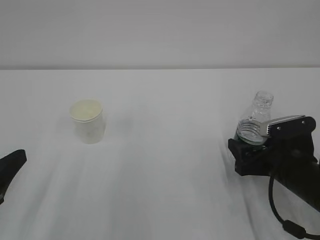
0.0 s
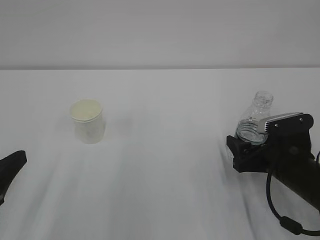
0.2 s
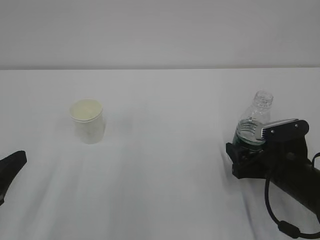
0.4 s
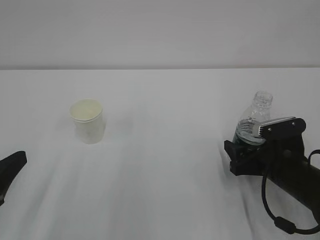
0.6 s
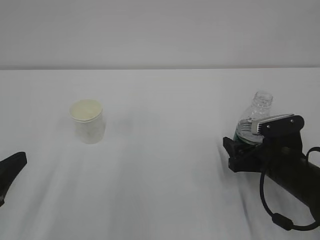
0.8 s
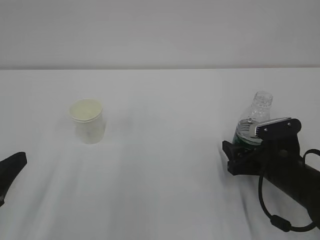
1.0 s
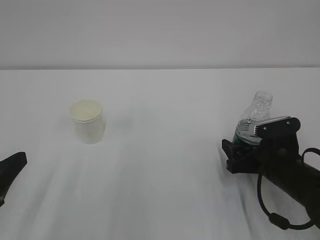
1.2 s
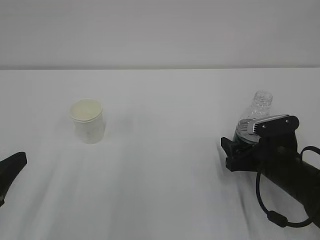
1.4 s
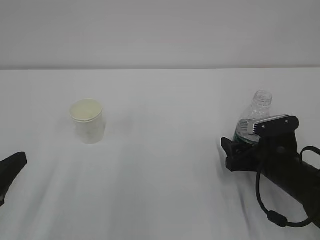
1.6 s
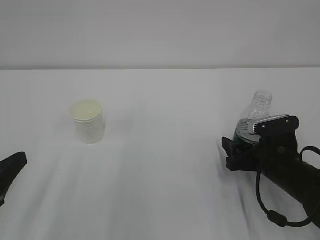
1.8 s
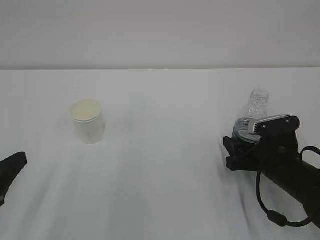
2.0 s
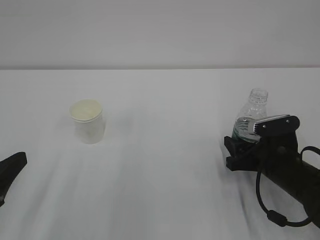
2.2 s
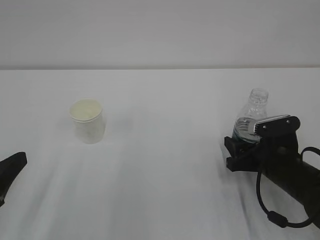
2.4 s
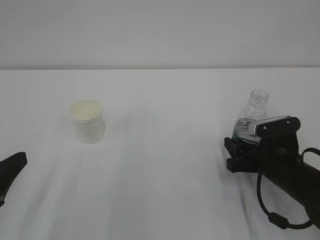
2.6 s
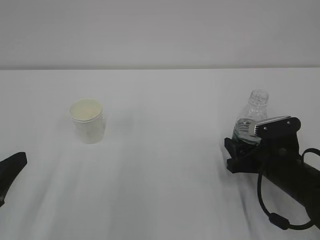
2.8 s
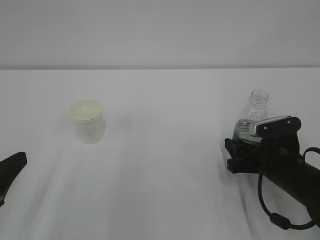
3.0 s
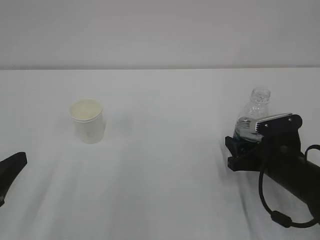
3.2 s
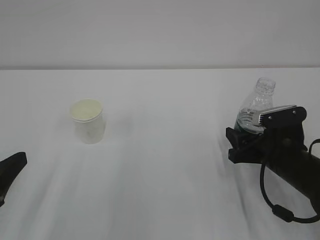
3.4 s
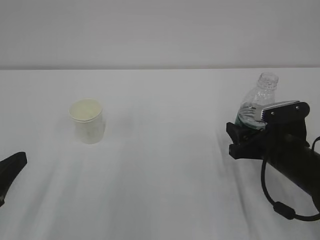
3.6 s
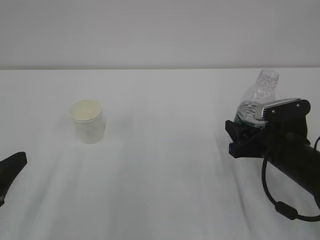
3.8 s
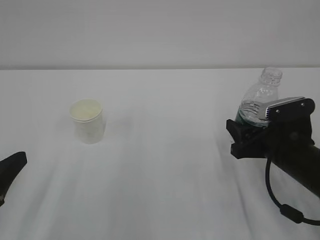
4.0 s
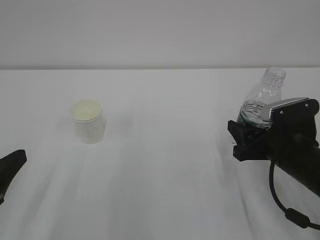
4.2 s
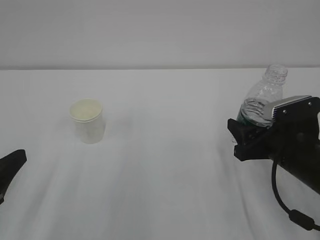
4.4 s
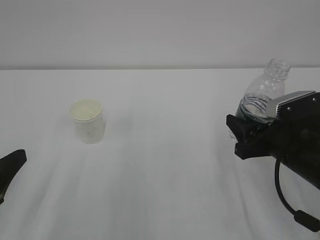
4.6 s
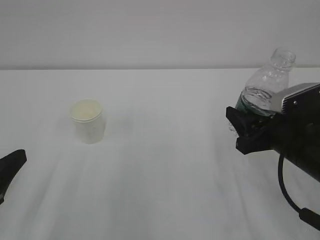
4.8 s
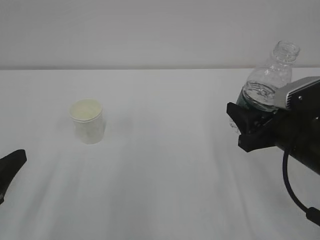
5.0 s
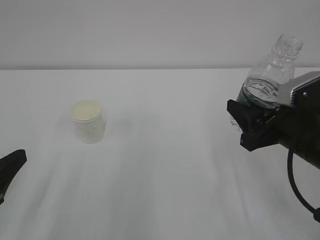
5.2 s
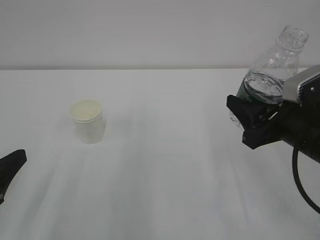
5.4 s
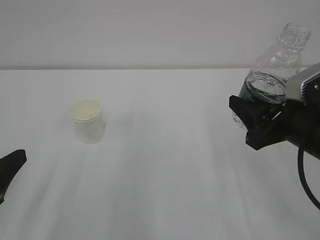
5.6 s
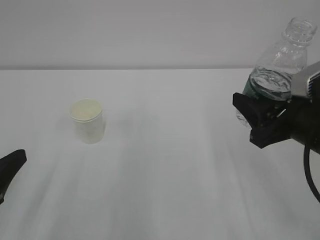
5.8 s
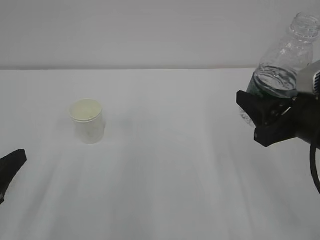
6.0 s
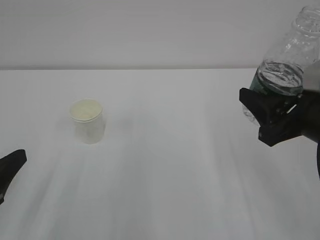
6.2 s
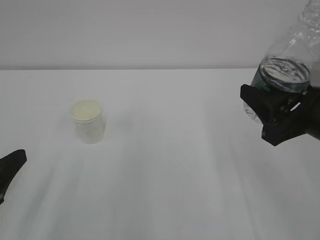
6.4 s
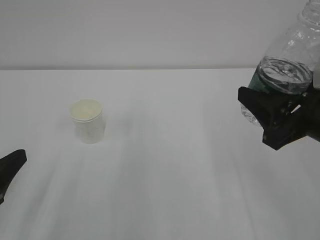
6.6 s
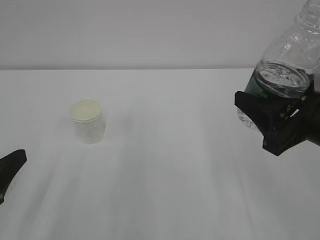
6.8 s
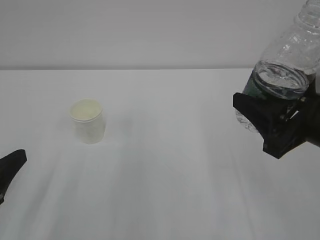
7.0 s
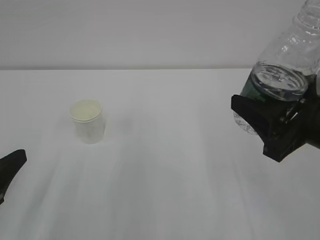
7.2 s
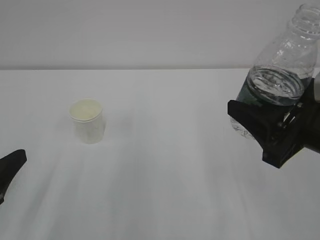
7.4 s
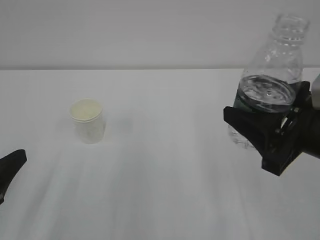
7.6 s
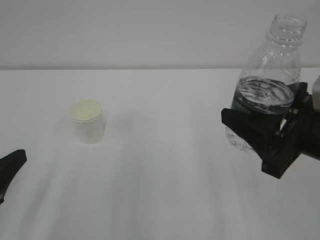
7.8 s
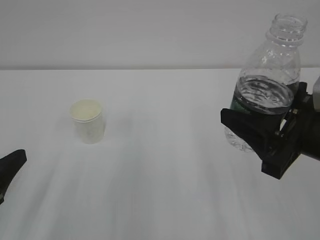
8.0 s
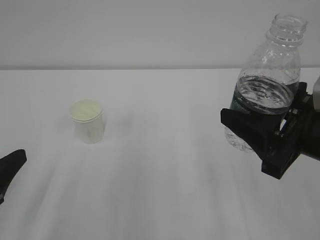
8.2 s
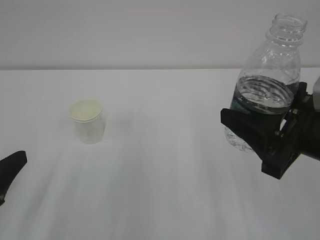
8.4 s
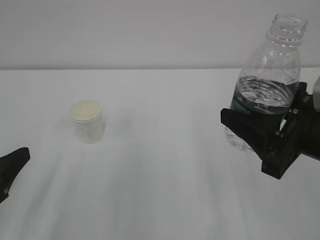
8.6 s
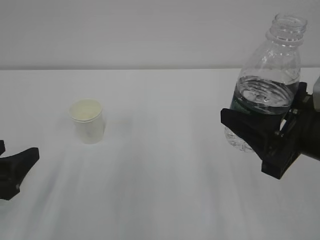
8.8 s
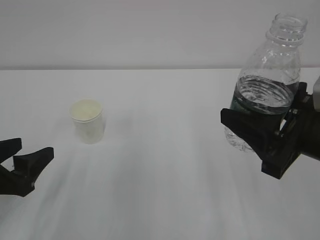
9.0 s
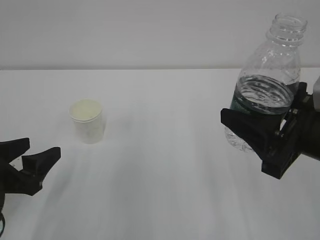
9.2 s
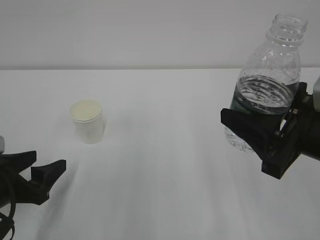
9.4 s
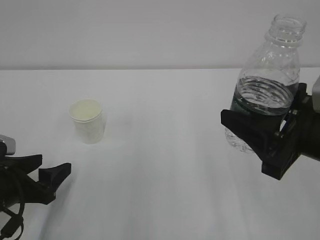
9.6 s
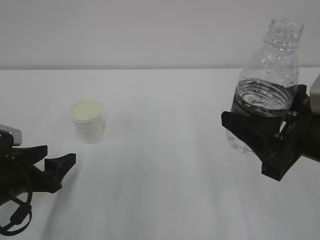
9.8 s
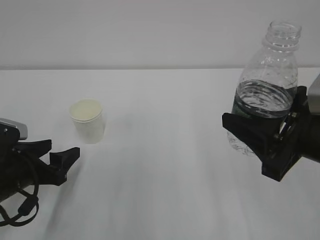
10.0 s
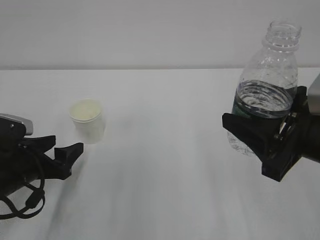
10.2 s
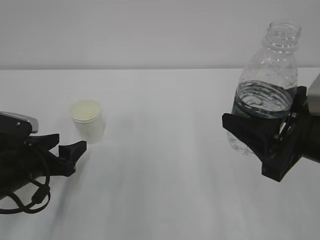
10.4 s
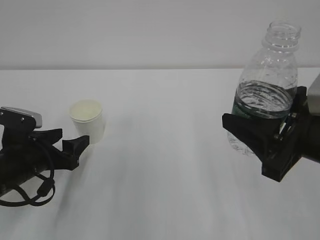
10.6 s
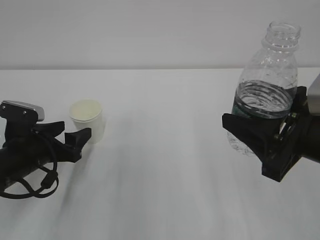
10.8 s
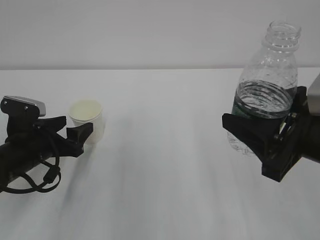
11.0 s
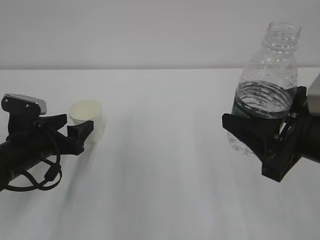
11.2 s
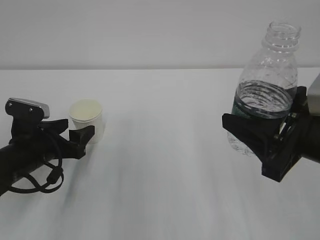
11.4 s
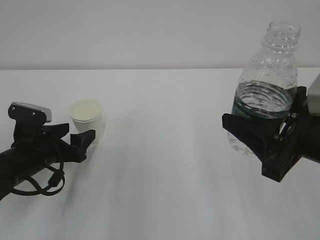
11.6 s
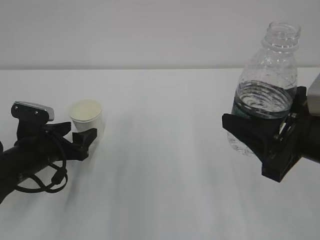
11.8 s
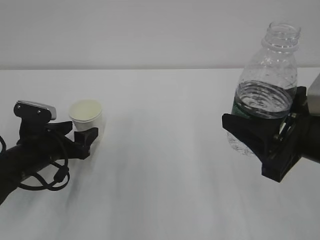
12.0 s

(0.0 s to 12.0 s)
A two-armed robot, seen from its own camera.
0.0 s - 1.6 s: The grippers stay close to where they were, moving slightly.
1.6 s - 3.0 s: The right gripper closes.
3.0 s - 4.4 s: The right gripper travels upward by some 5 cm.
4.4 s - 6.0 s: The right gripper travels upward by some 10 cm.
6.0 s - 9.0 s: There are only small adjustments of the grippers.
9.0 s - 10.4 s: The left gripper moves forward and downward, roughly 10 cm.
10.4 s - 12.0 s: The grippers make only small movements.

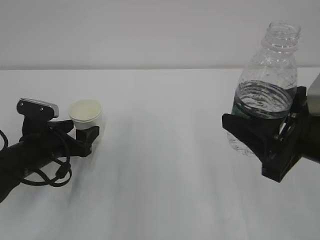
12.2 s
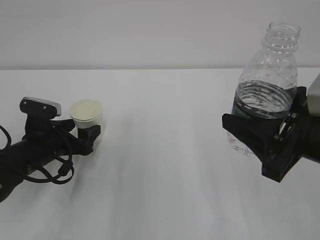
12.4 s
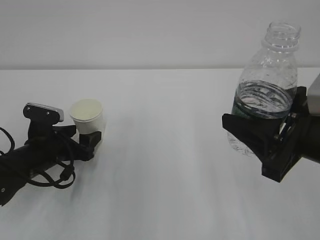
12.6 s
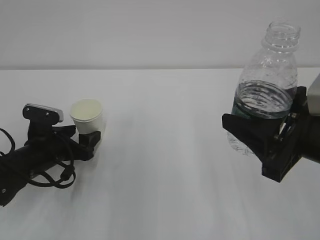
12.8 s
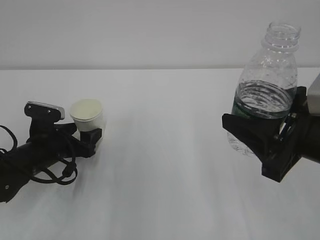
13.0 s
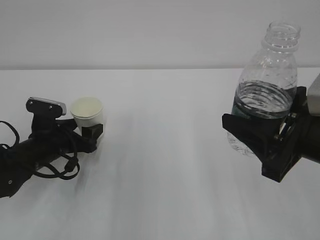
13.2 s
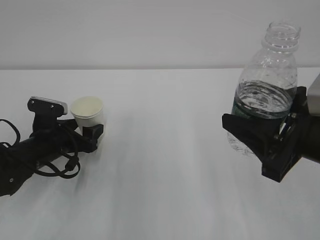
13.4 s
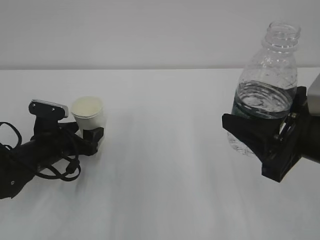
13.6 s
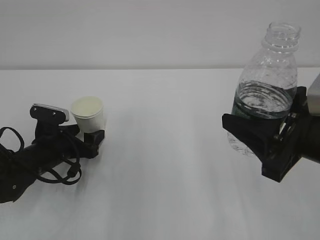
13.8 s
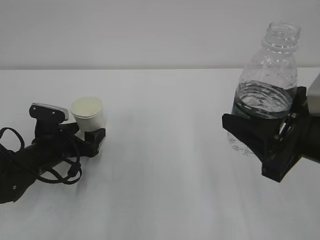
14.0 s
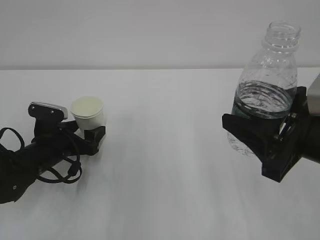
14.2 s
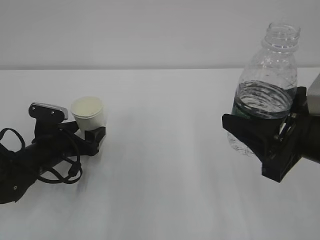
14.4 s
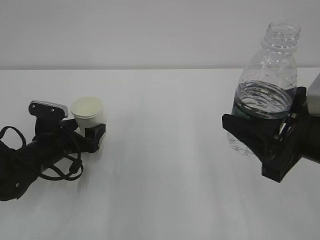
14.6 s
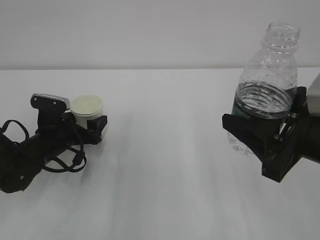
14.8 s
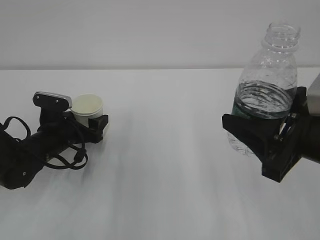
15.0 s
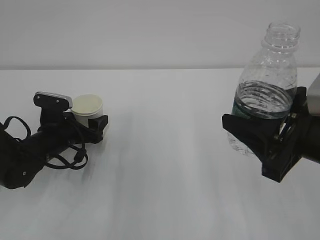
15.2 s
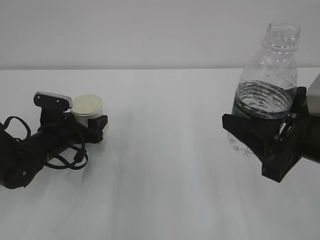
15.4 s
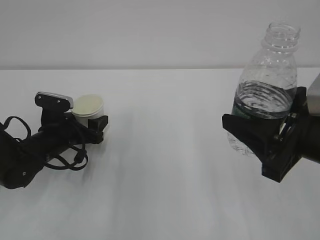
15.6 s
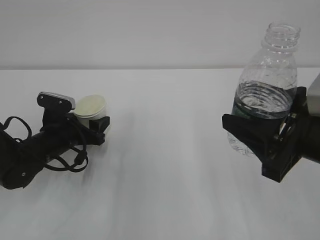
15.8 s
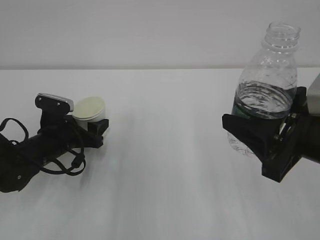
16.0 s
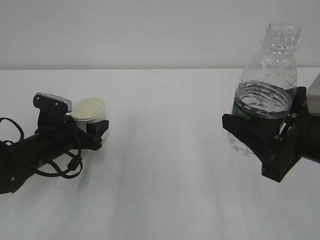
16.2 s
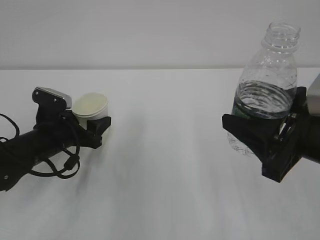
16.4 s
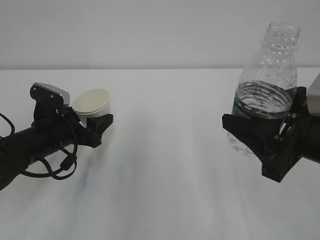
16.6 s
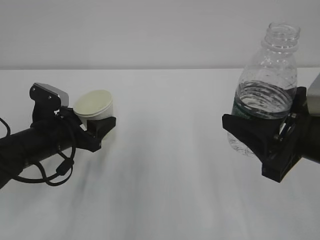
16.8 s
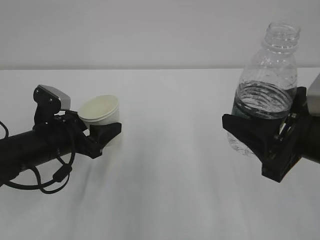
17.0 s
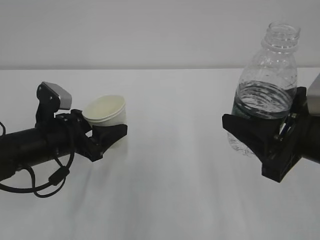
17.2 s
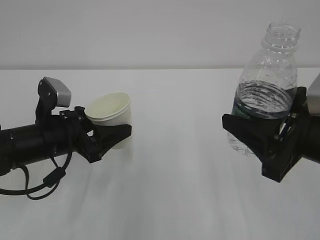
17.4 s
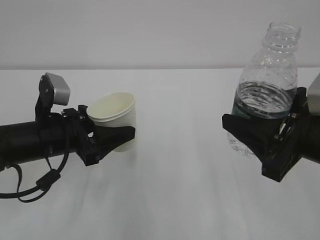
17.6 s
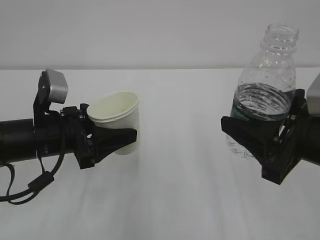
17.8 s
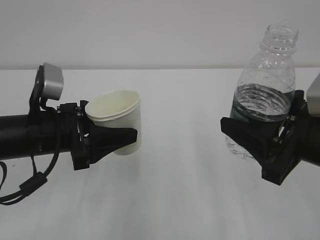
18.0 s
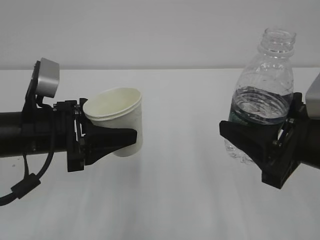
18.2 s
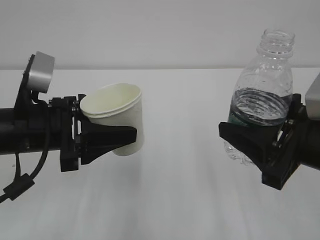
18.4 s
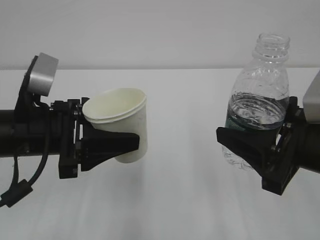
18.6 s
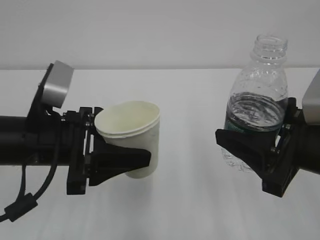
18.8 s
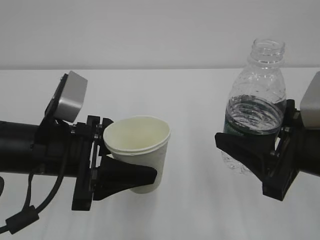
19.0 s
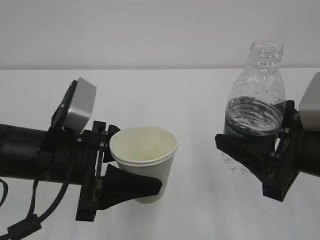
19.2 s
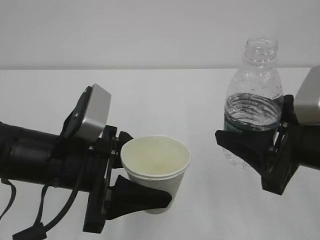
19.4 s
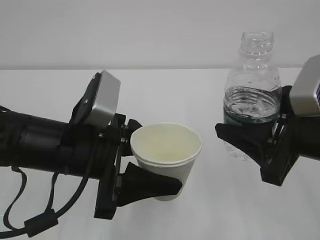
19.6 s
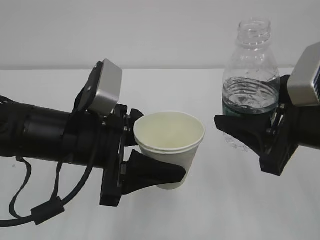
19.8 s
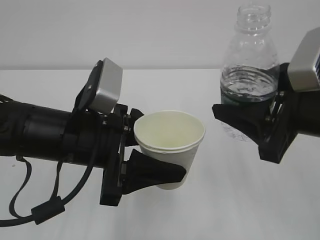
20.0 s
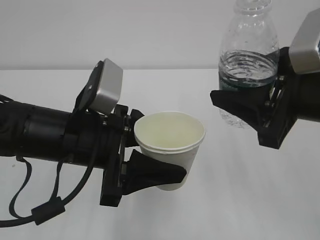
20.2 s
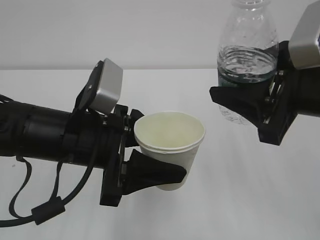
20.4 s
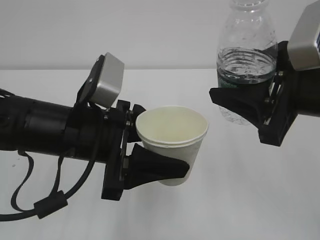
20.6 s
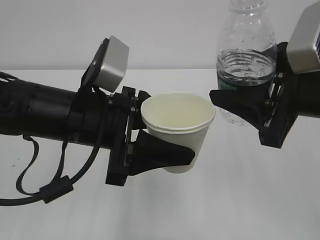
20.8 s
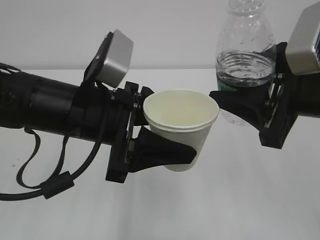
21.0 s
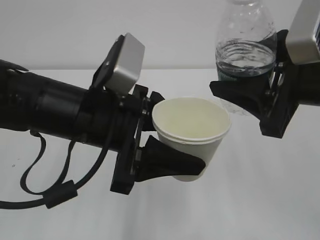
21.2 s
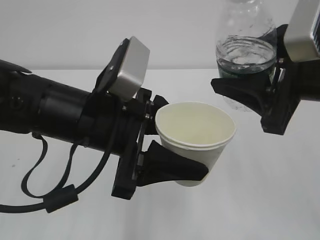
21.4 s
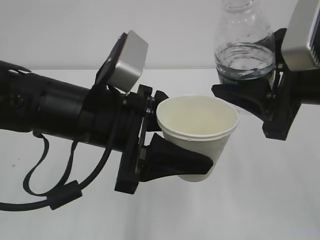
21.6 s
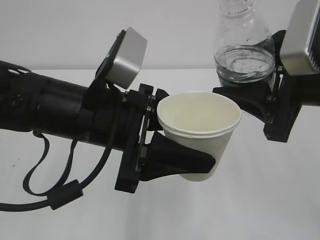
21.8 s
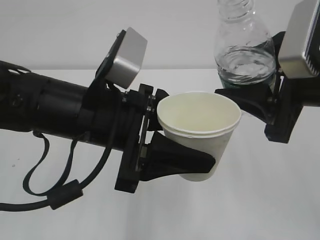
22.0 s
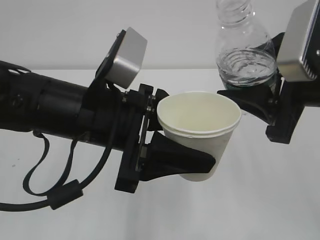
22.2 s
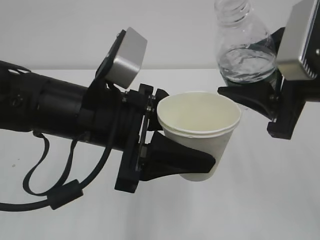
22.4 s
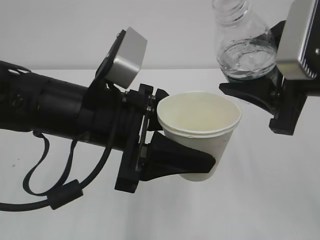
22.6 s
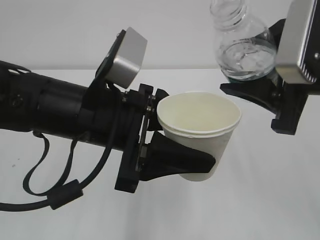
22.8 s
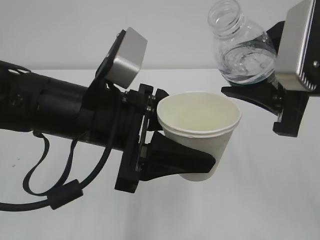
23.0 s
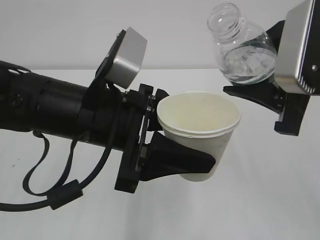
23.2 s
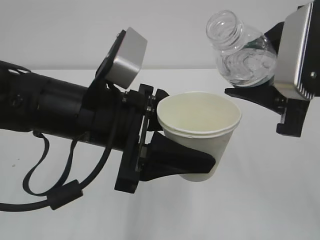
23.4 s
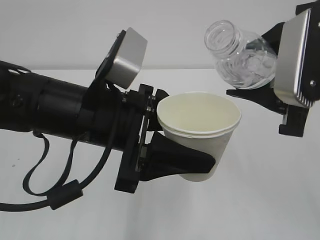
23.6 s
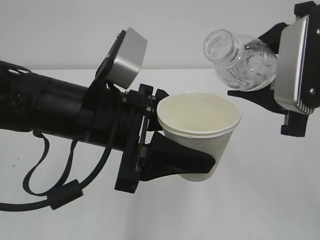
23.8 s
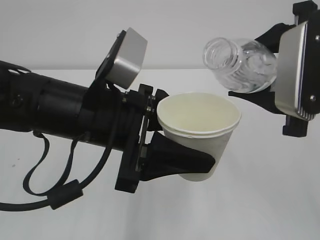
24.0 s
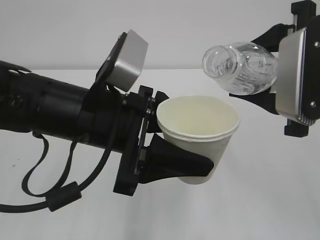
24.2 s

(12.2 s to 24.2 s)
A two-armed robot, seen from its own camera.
12.2 s - 15.2 s: The grippers stay close to where they were, moving slightly.
15.2 s - 16.6 s: The left gripper changes place by about 5 cm, and closes up.
16.6 s - 18.2 s: The left gripper goes roughly 10 cm upward and backward.
18.2 s - 19.8 s: The left gripper heads to the right, covering about 5 cm.
19.8 s - 21.2 s: The right gripper shifts by about 5 cm.
21.2 s - 22.6 s: There are only small adjustments of the grippers.
